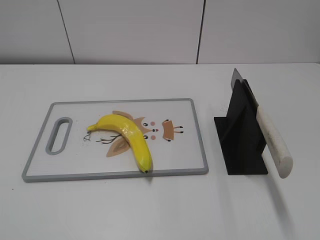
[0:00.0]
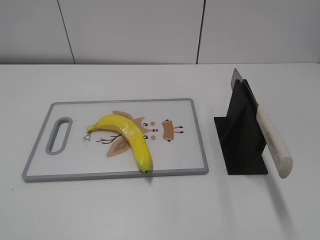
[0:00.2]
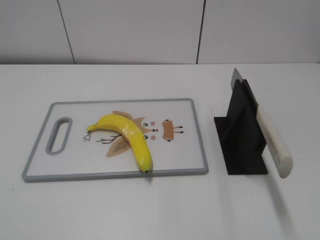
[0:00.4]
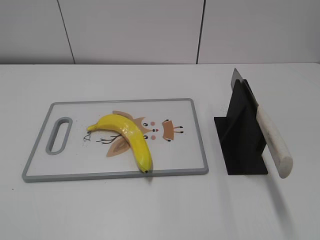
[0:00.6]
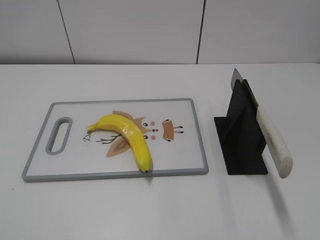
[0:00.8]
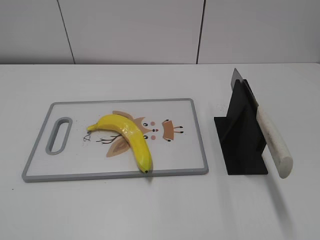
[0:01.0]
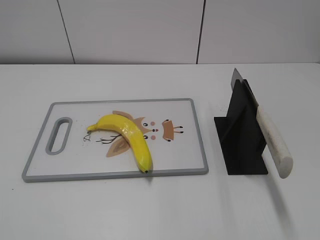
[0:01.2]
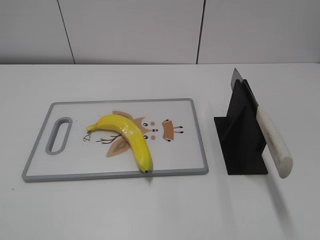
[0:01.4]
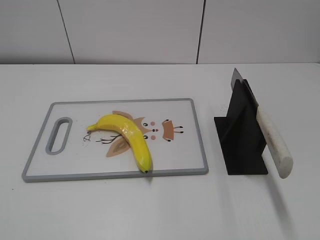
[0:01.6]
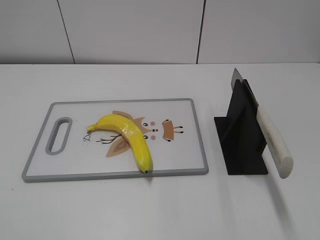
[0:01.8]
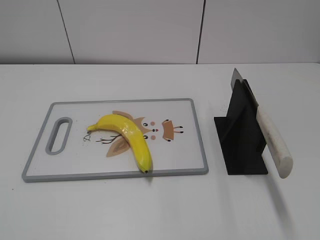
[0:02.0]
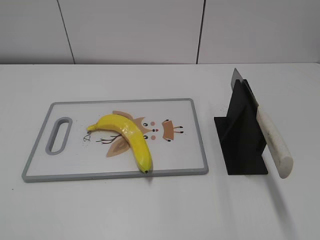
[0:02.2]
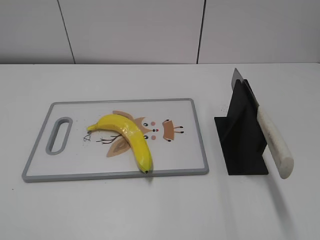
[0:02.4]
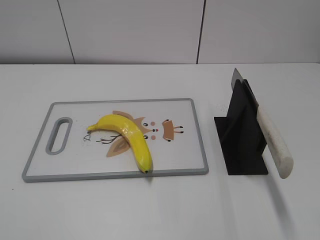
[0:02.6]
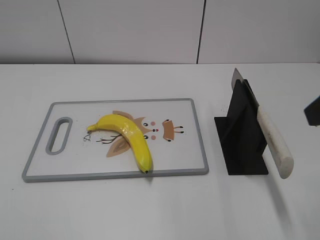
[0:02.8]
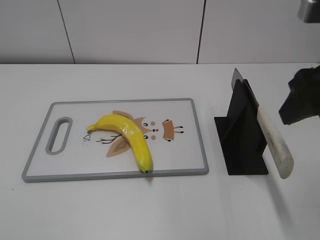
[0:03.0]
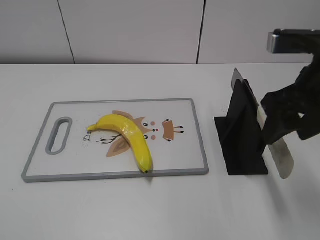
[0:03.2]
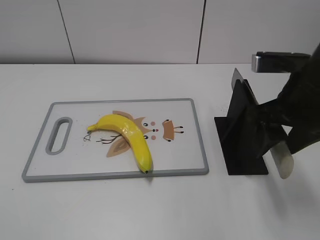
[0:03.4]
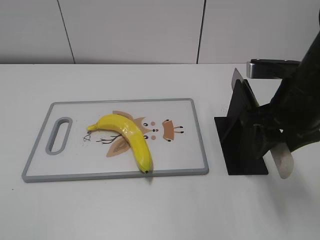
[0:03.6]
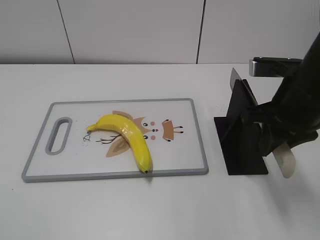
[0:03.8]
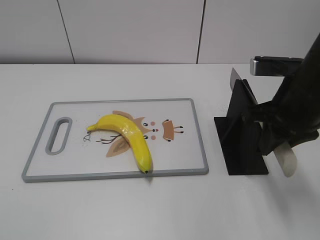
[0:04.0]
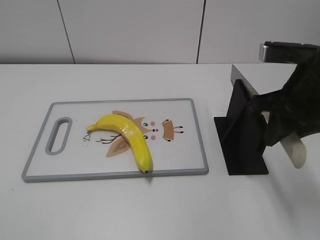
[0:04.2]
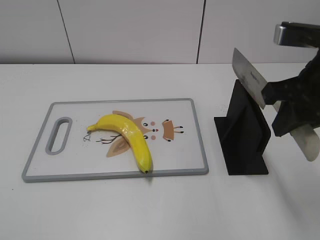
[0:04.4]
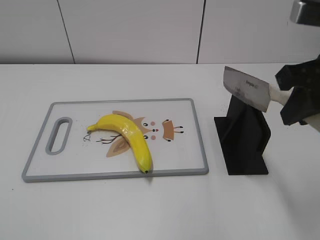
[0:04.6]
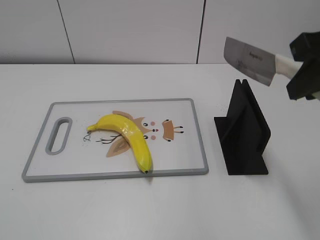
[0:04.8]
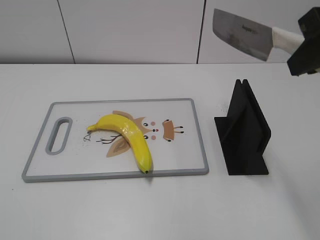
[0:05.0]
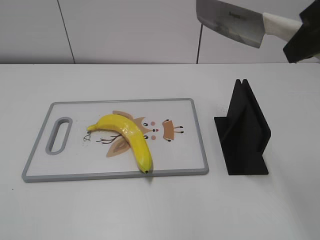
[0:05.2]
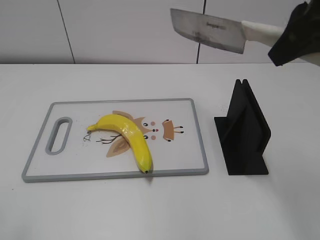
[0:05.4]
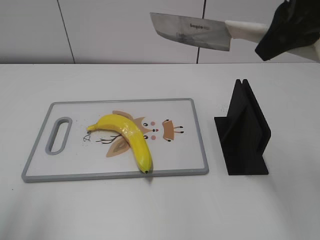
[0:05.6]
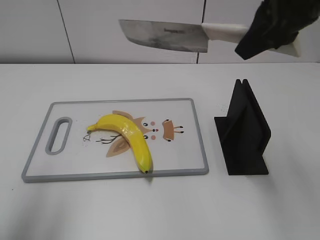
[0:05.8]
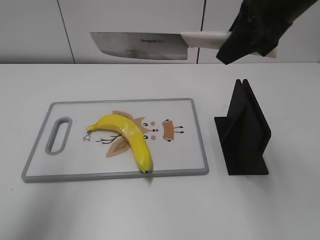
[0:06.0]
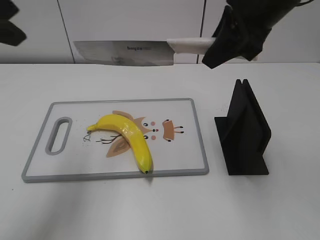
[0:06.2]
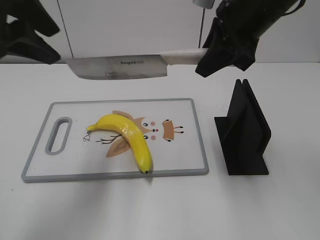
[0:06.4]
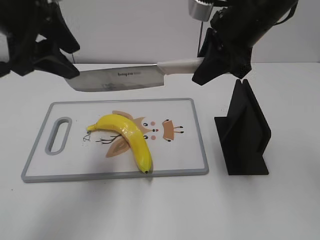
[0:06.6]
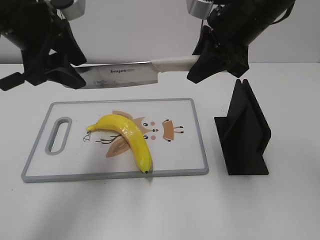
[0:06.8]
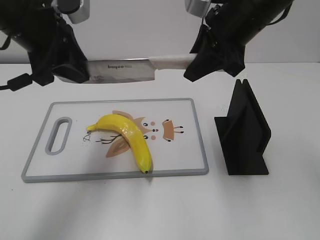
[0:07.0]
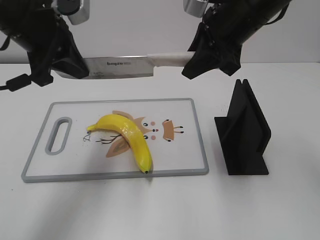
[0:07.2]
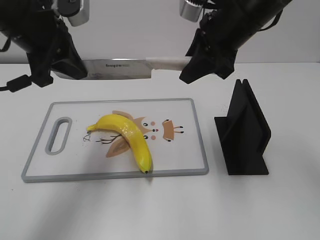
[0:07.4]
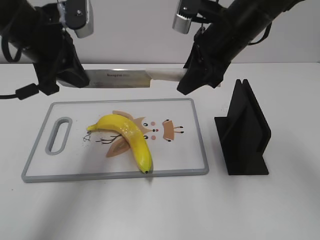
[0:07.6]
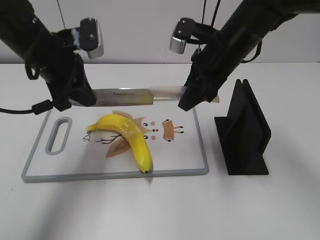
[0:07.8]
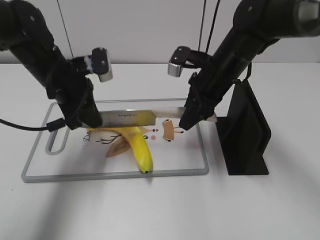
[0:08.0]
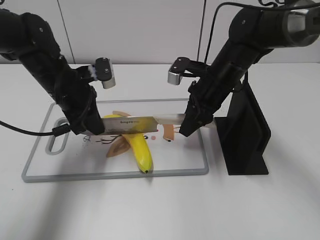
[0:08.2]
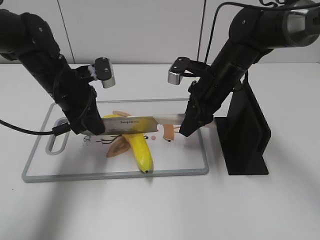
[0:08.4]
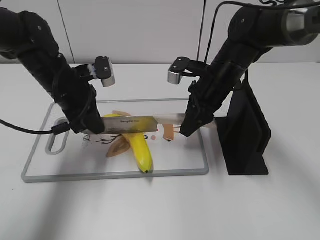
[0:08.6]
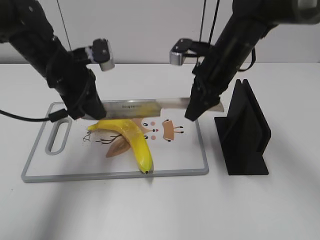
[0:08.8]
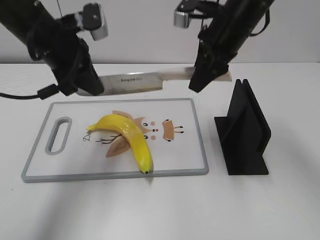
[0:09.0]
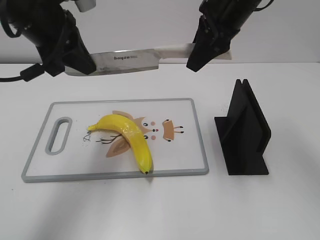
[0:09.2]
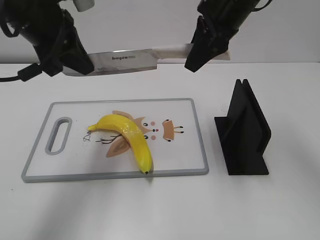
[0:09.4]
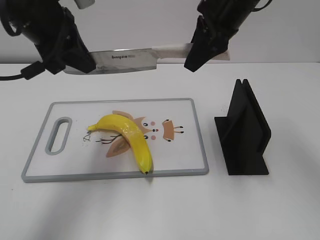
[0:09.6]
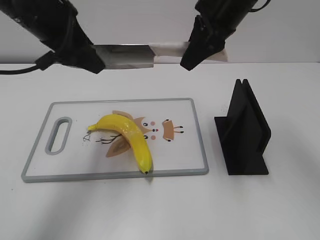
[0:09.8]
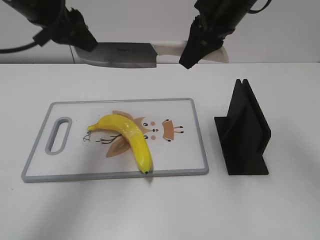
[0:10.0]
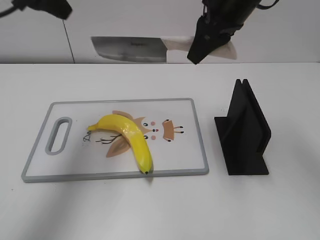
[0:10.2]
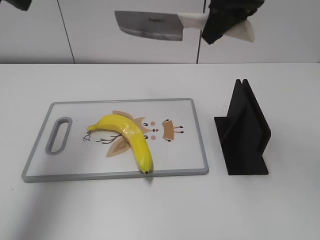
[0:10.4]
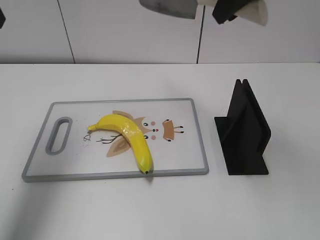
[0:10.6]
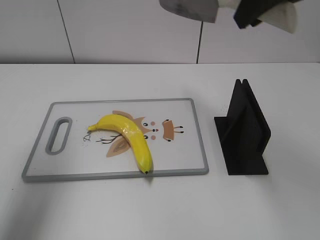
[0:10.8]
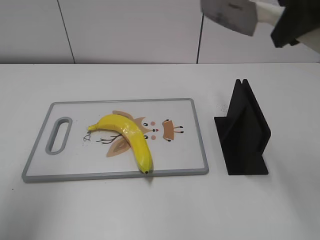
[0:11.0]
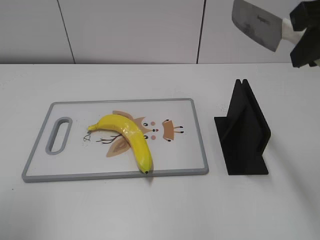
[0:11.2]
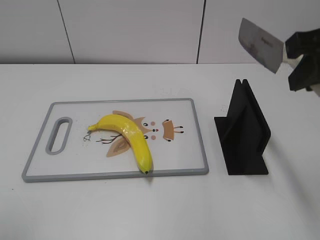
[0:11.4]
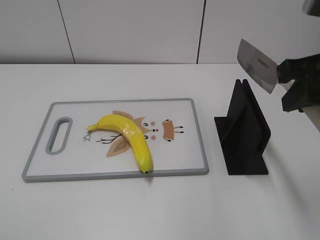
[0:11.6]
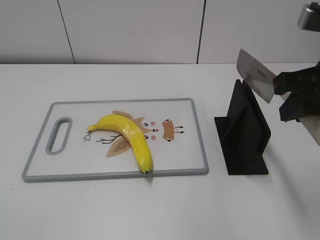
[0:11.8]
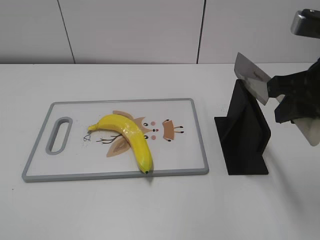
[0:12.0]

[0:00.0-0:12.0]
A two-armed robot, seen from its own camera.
Task of the whole recording: cut plastic banana.
Step, 0:00.0 to 0:04.6: Grab the knife handle with your right hand.
Step, 0:05.0 to 0:08.8: Lift the knife with your right hand.
Step, 0:09.0 to 0:10.2: Cut the banana with your right hand.
Step, 0:10.4 to 0:11.6: Lift the knife with your right hand.
0:01.6 to 0:03.0: The right gripper goes about 25 cm forward and to the left.
0:03.0 to 0:04.4: The right gripper closes its fingers.
0:04.4 to 0:06.0: The left gripper shifts some 25 cm forward and upward; the right gripper heads upward and forward, covering roughly 10 cm.
0:06.0 to 0:07.6: The left gripper travels downward, forward and to the right by about 20 cm, and closes, while the right gripper heads downward and forward, covering some 10 cm.
0:07.6 to 0:09.0: The left gripper reaches about 10 cm downward, then returns. Meanwhile the right gripper moves approximately 10 cm downward and comes back.
0:09.0 to 0:10.4: The left gripper travels upward and to the left by about 15 cm, and opens. Meanwhile the right gripper shifts approximately 10 cm upward.
0:10.4 to 0:12.0: The right gripper is displaced backward, to the right and downward by some 15 cm; the left gripper goes roughly 35 cm backward.

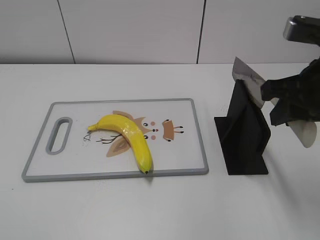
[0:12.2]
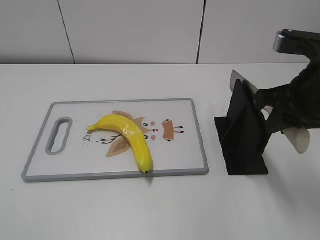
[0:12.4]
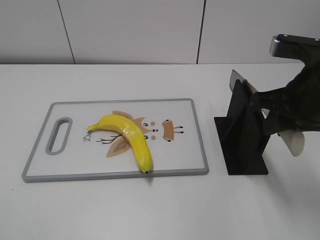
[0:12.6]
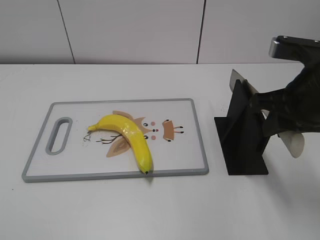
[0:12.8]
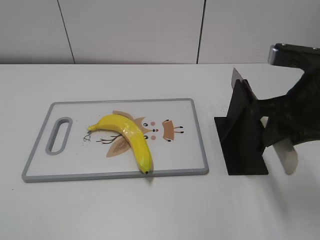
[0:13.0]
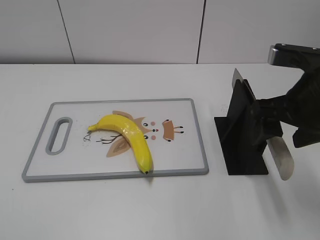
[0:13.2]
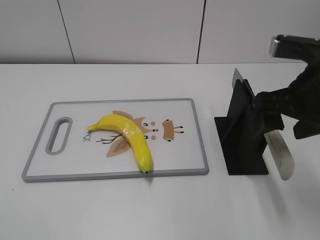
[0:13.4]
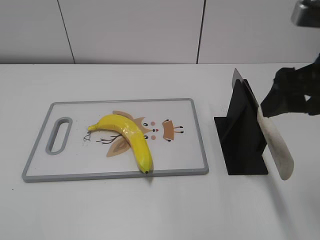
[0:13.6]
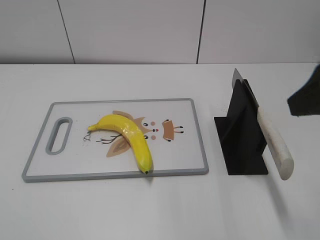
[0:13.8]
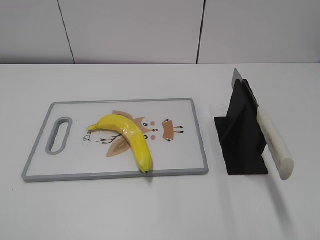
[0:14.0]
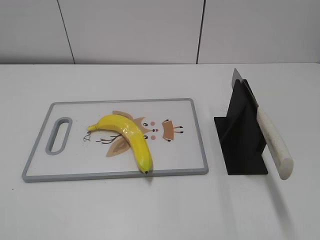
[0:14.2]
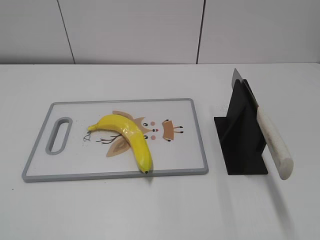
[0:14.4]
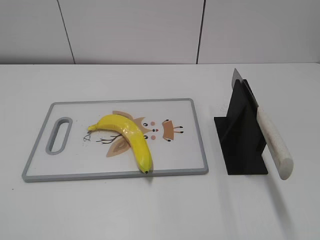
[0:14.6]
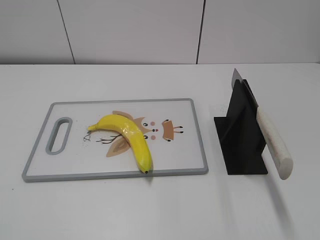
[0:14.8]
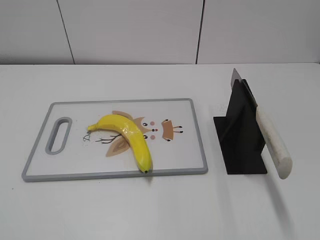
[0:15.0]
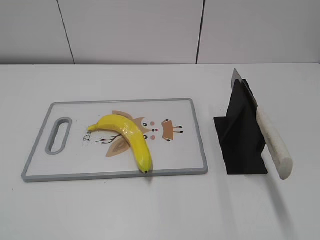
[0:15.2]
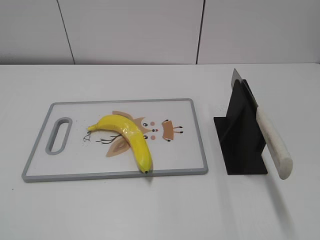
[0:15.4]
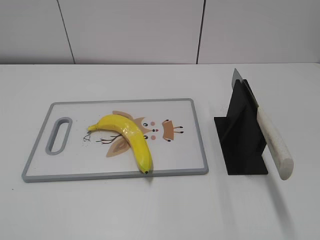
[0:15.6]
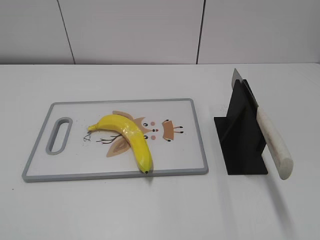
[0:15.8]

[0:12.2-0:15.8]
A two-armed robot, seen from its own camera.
Task of the whole recording: cut plastic banana.
Step, 0:12.2 to 0:15.8: Place the knife on the storage rack with your right hand.
0:12.2 to 0:14.0: The right gripper shifts some 10 cm backward and upward, and opens up.

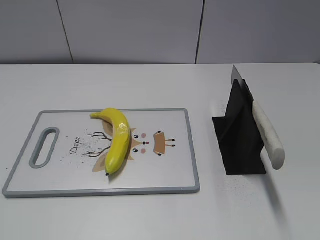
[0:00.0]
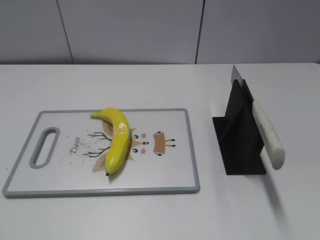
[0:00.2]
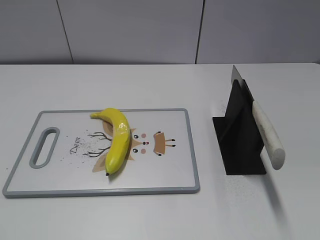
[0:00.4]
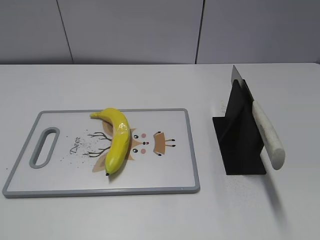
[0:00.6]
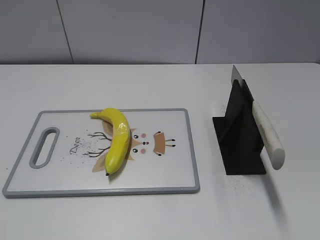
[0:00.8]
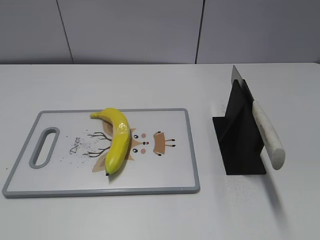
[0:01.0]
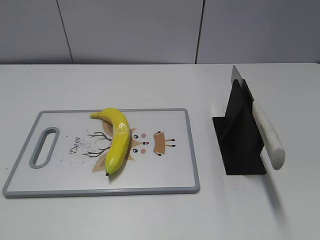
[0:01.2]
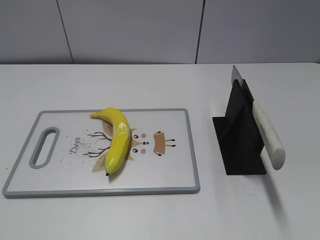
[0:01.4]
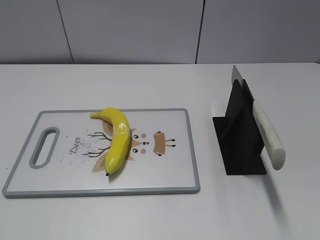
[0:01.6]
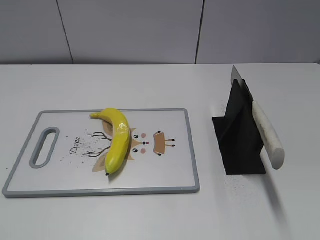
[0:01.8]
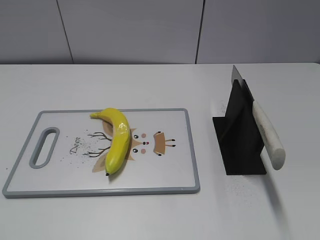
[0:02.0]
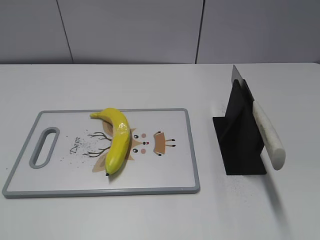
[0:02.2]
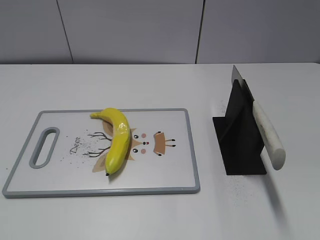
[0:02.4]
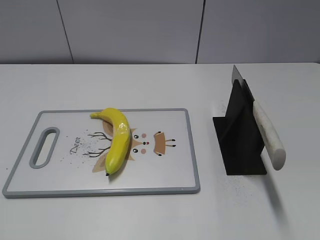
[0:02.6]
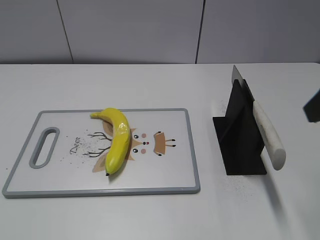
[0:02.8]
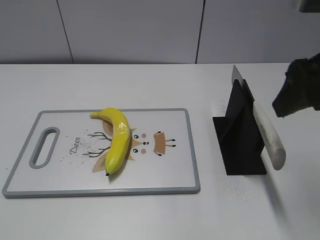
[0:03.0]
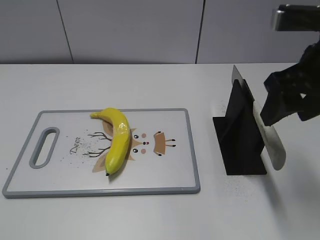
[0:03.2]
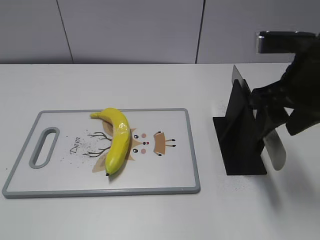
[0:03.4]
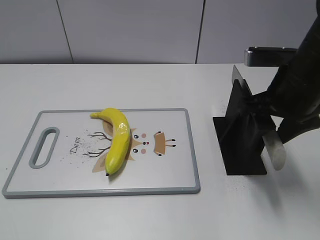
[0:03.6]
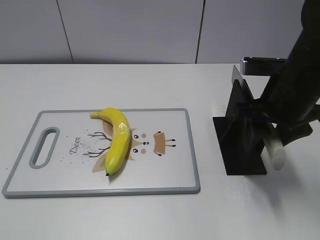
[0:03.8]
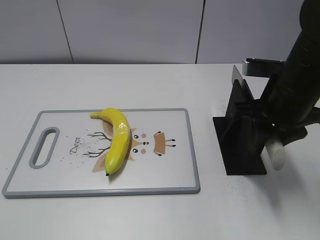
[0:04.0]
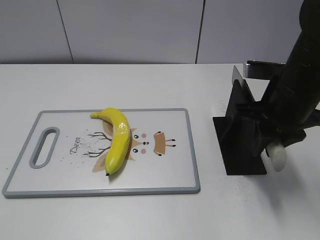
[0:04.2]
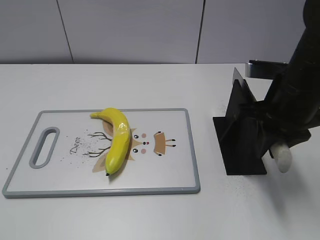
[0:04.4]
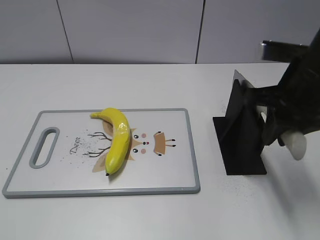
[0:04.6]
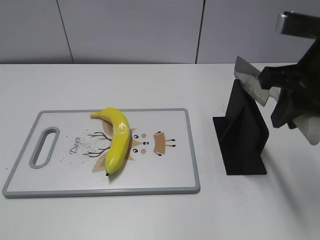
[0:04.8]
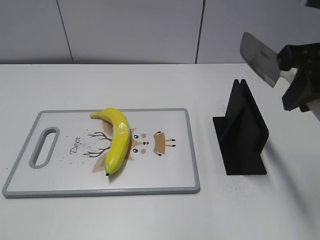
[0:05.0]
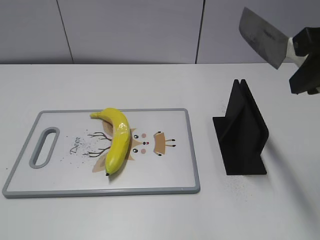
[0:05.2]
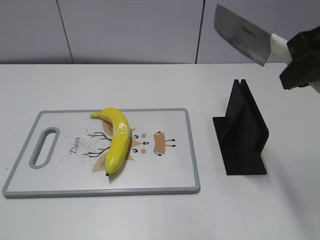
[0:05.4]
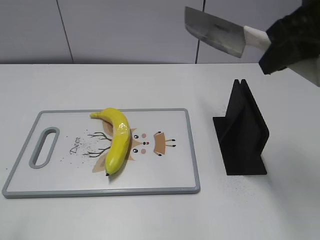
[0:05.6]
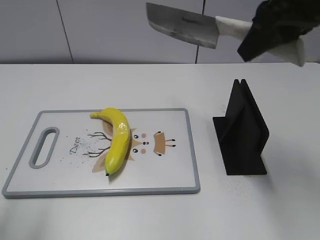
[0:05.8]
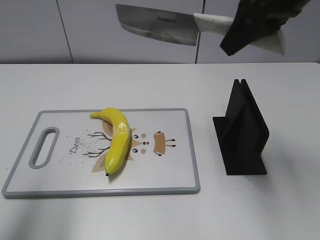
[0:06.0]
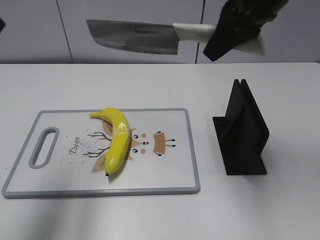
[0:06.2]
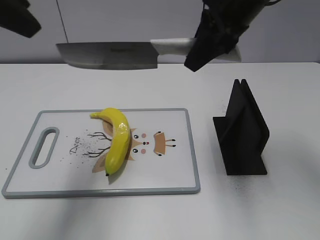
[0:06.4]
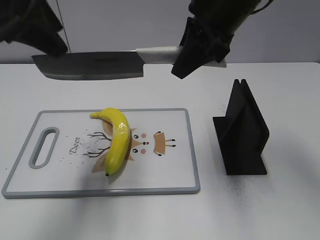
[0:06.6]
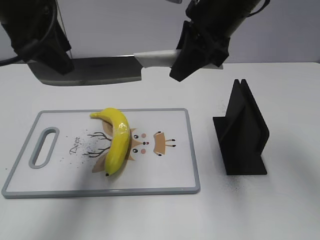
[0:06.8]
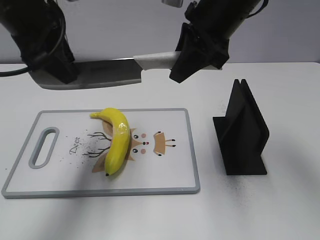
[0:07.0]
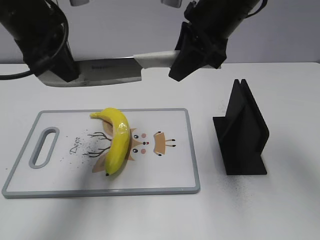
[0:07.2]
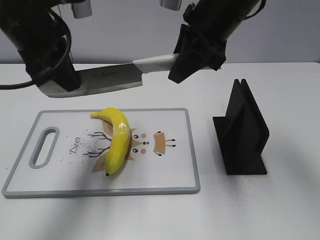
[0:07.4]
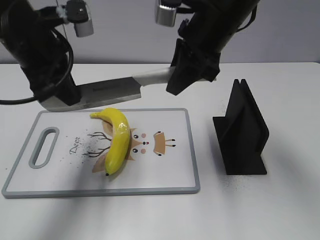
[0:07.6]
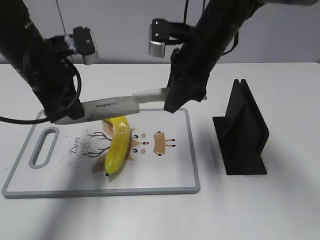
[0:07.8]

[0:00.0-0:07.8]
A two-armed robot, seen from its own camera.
Task of the whole recording: cut plastic banana.
Step, 0:00.0 to 0:05.0: Grab the knife handle with your right hand.
0:01.6 to 0:03.2: The right gripper moves forward, roughly 25 cm.
0:03.2 to 0:04.6: The right gripper closes up.
0:04.6 to 0:06.2: The left gripper shifts about 25 cm forward and upward, while the right gripper shifts about 10 cm upward, forward and to the left.
0:06.2 to 0:07.8: The left gripper shifts roughly 20 cm downward and forward, and closes. Meanwhile the right gripper travels downward and to the left by approximately 15 cm.
